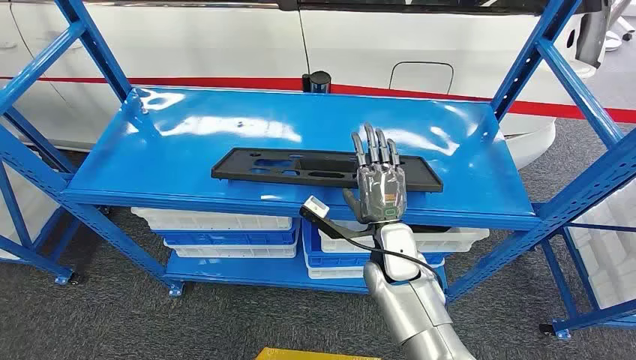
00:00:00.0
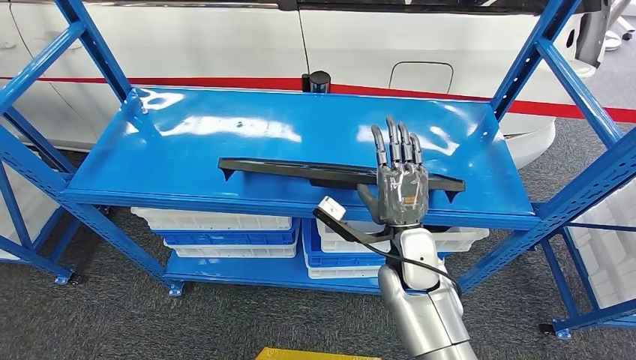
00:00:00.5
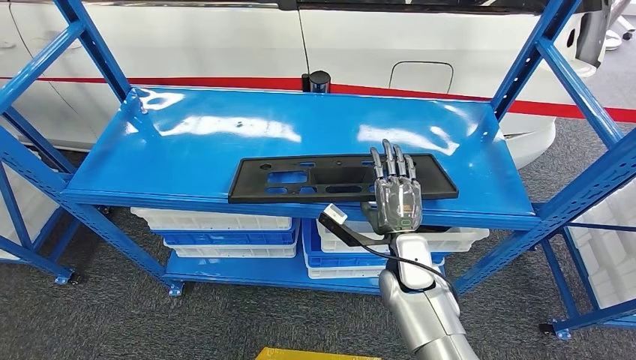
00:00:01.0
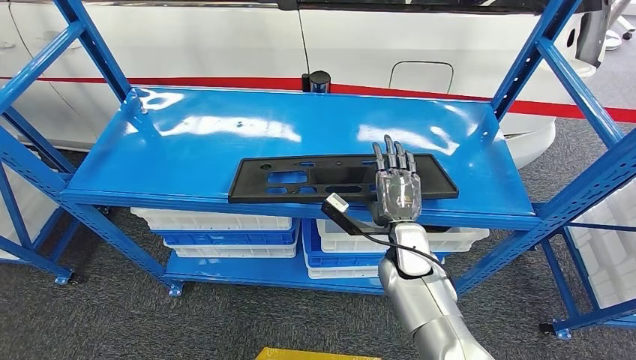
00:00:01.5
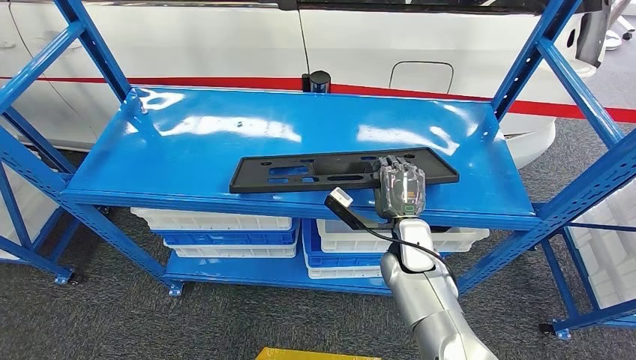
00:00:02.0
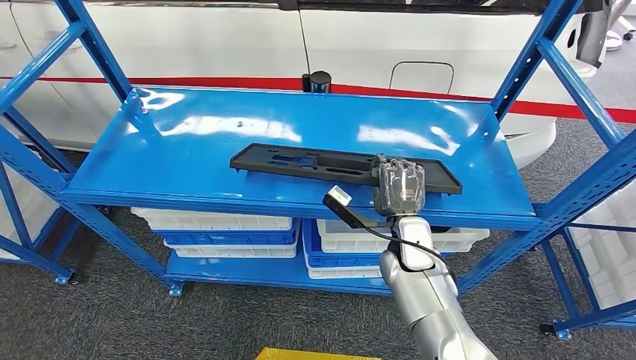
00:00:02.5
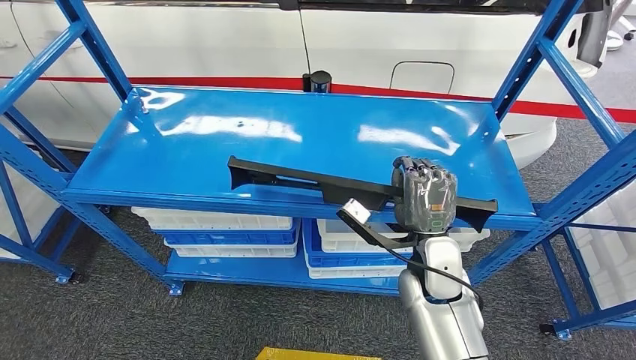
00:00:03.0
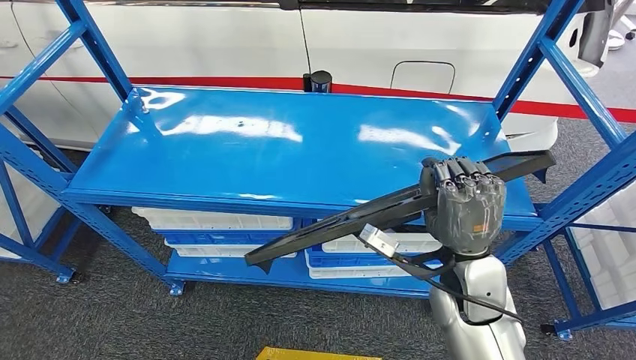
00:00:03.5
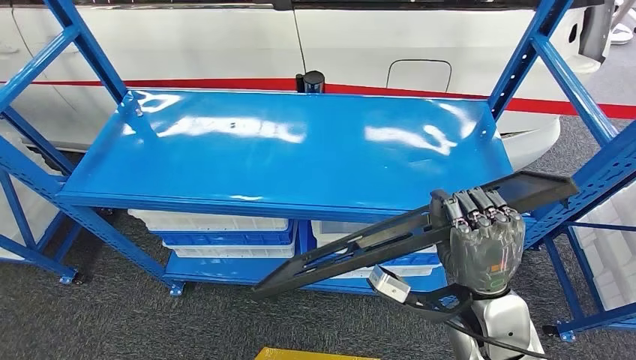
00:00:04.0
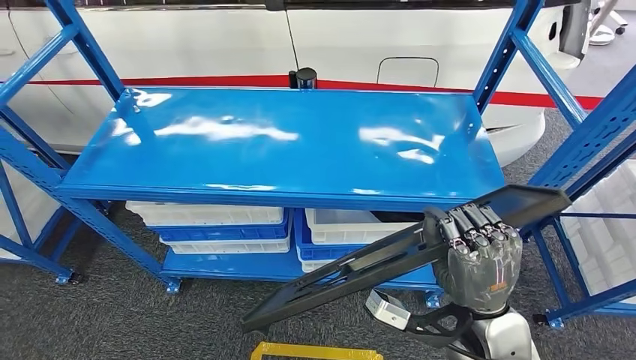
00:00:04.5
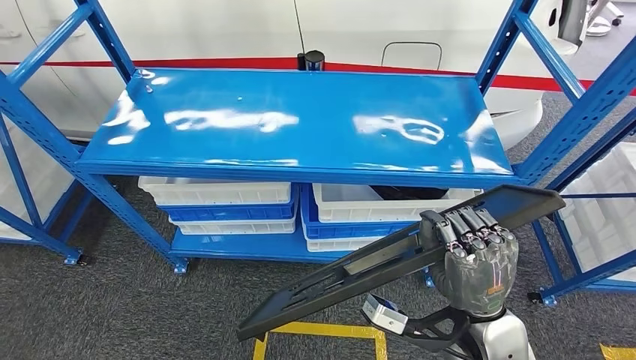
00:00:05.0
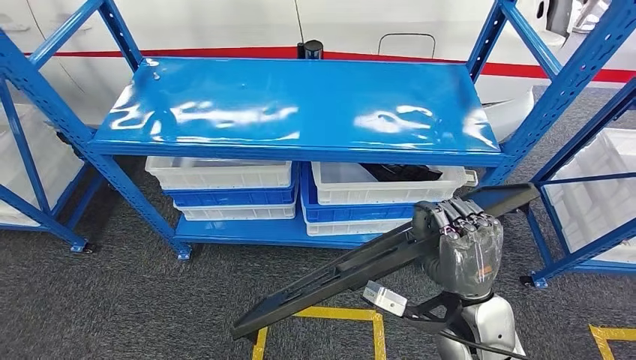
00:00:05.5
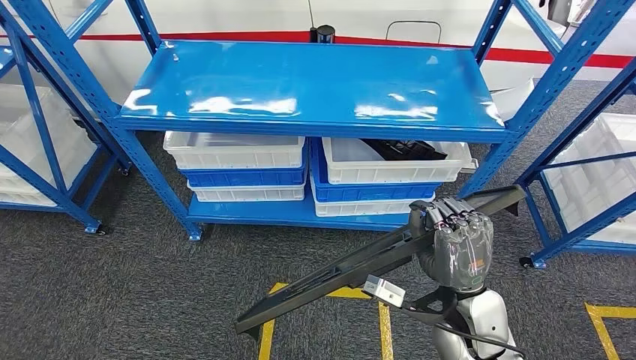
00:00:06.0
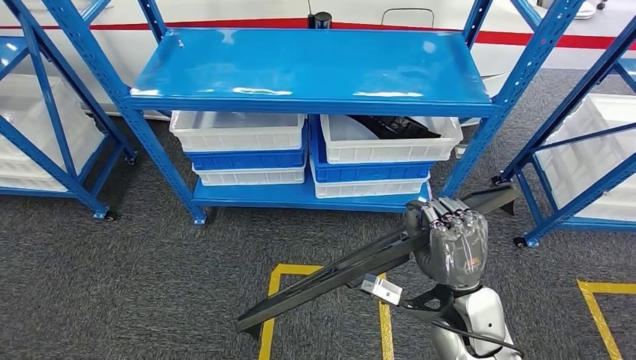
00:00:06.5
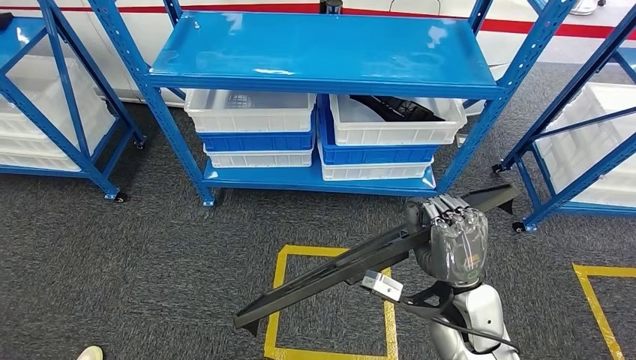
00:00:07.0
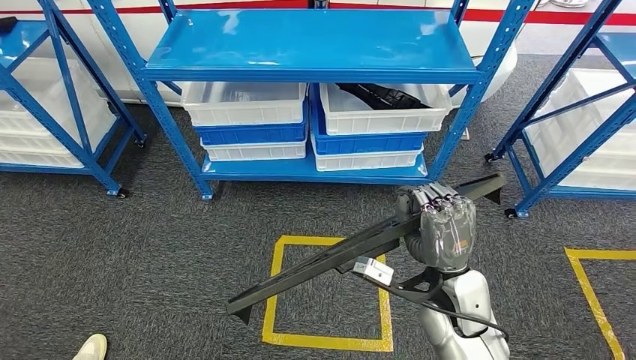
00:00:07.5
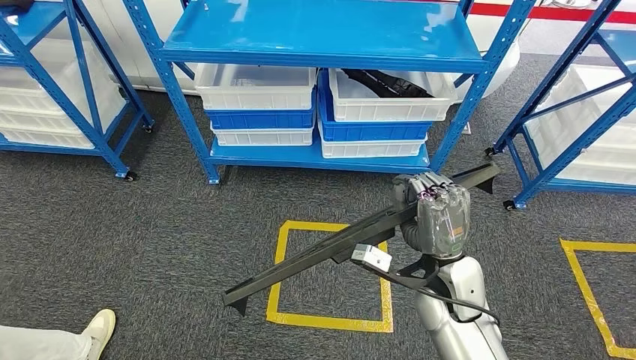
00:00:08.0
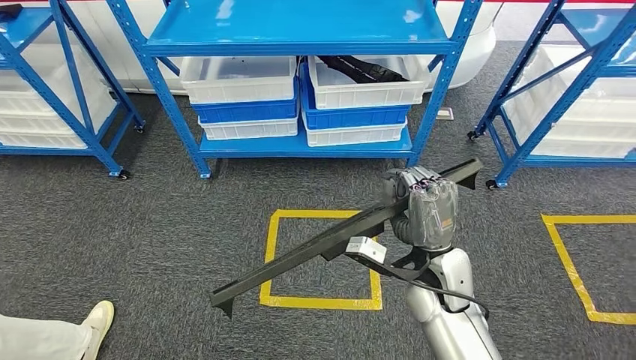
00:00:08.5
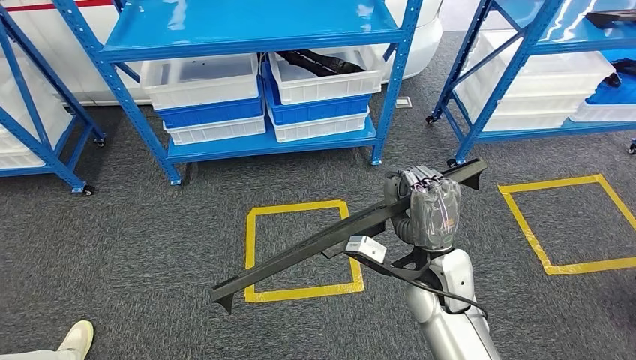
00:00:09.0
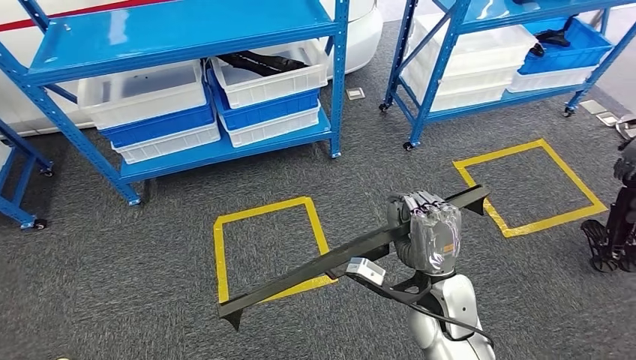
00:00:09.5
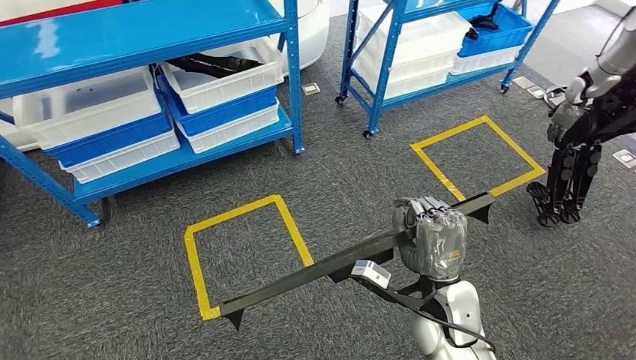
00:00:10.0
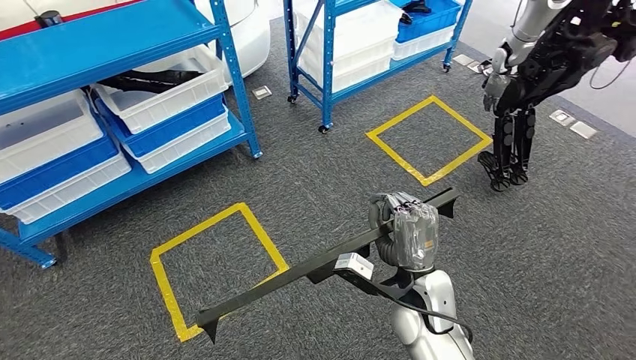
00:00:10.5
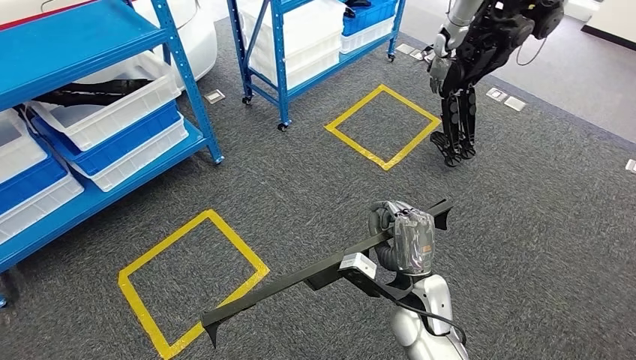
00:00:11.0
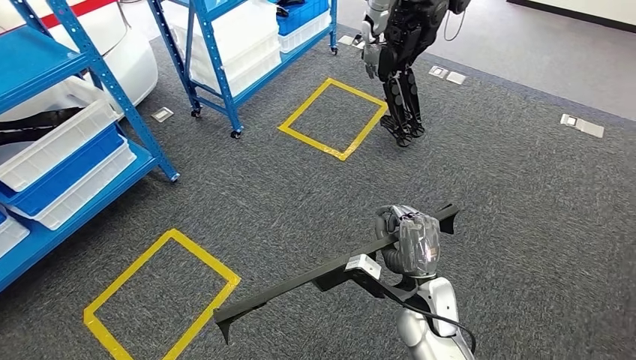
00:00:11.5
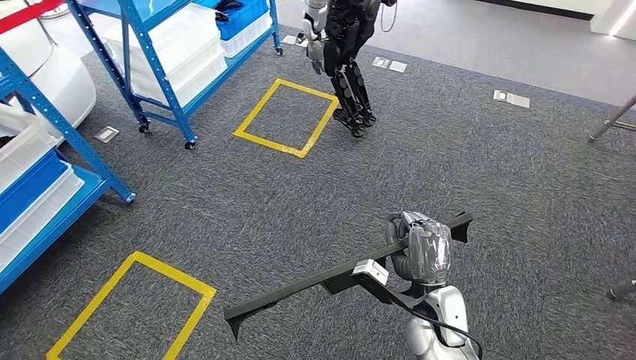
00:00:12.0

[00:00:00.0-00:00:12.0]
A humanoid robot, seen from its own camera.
Step, 00:00:00.0 to 00:00:05.0: Pick up the large material from the shelf.

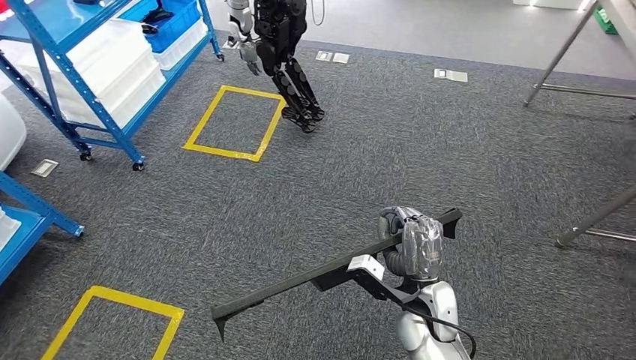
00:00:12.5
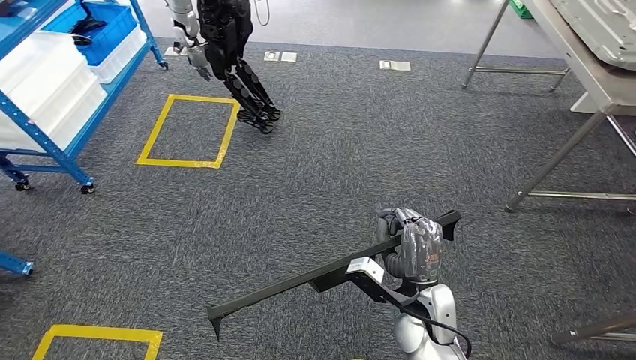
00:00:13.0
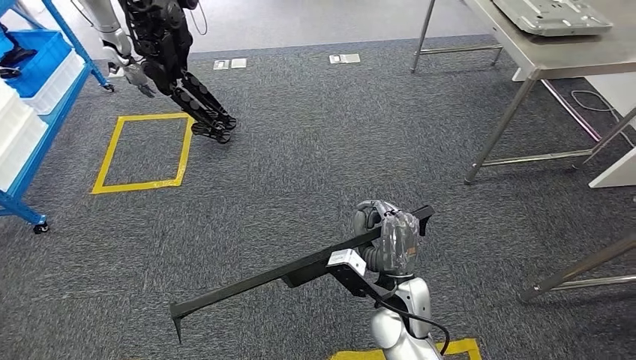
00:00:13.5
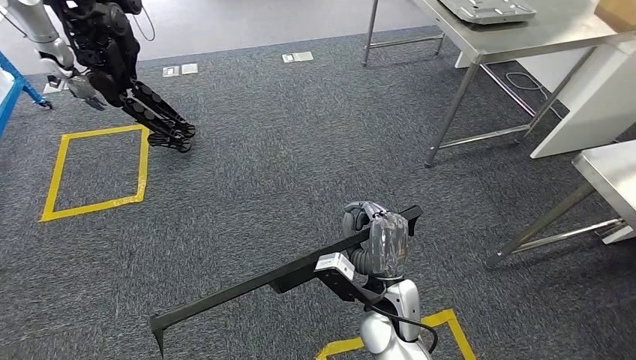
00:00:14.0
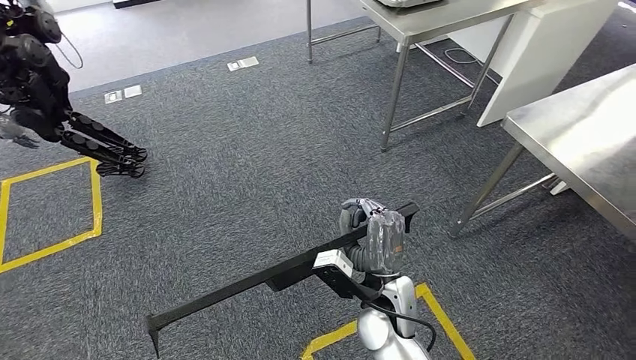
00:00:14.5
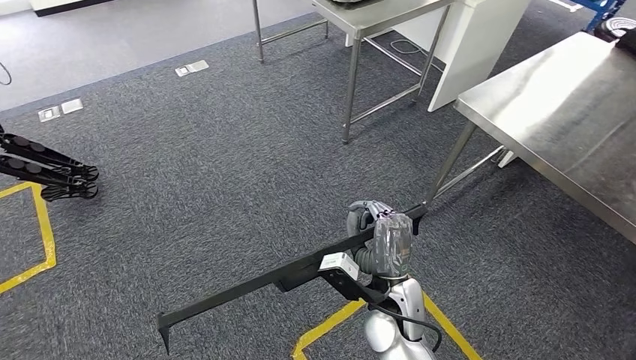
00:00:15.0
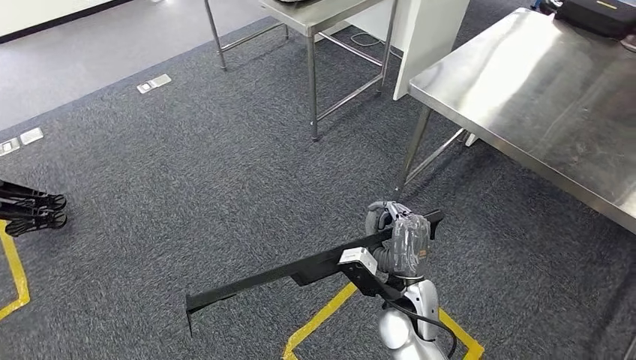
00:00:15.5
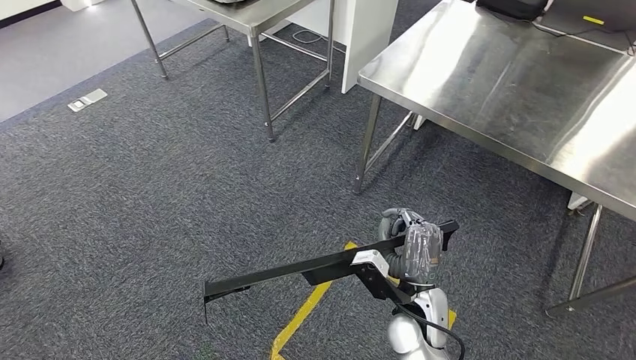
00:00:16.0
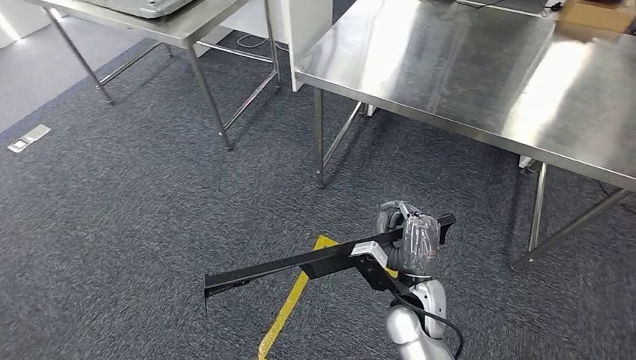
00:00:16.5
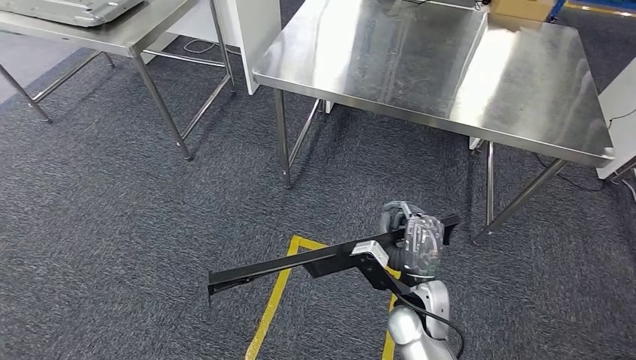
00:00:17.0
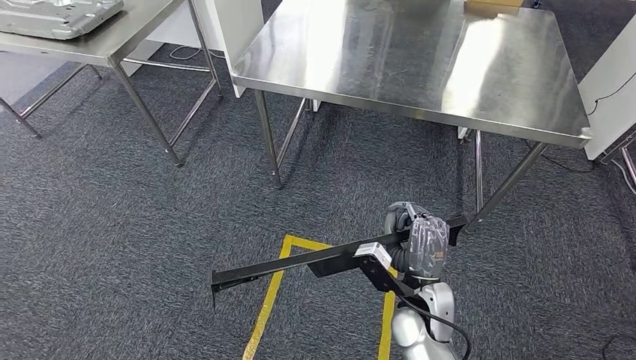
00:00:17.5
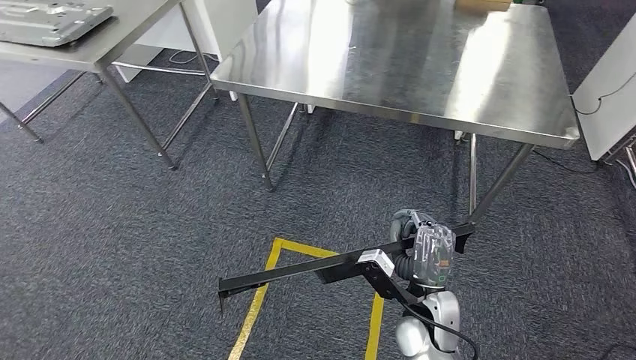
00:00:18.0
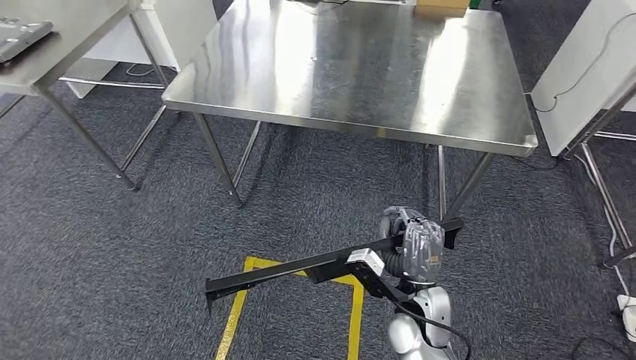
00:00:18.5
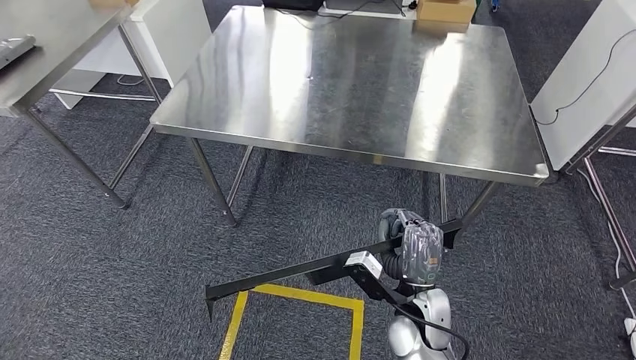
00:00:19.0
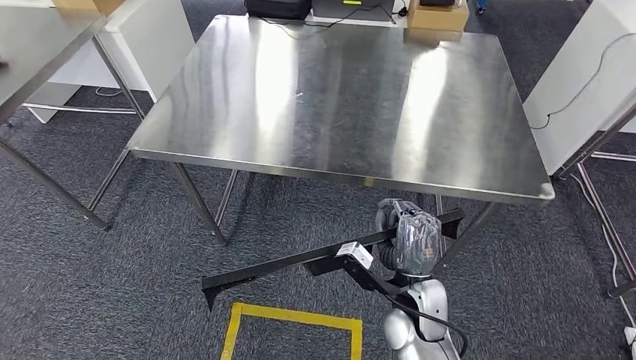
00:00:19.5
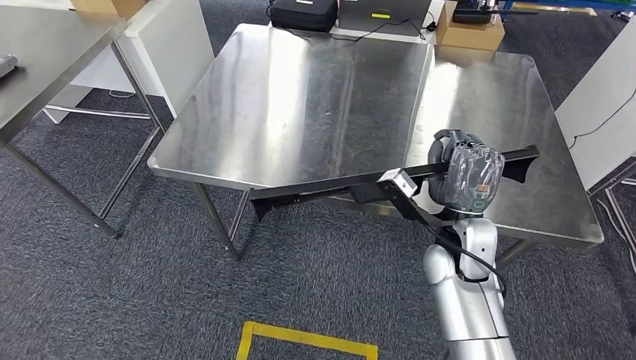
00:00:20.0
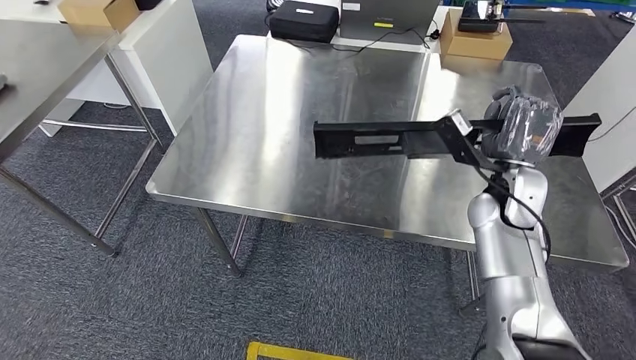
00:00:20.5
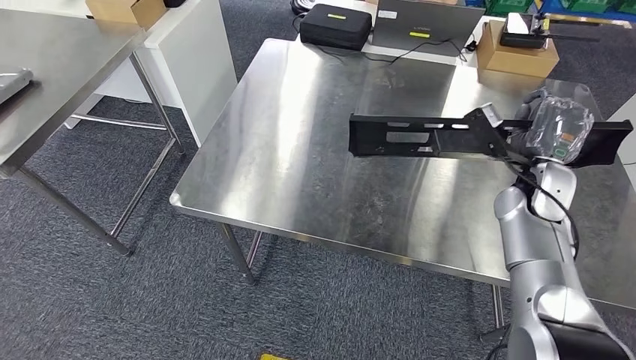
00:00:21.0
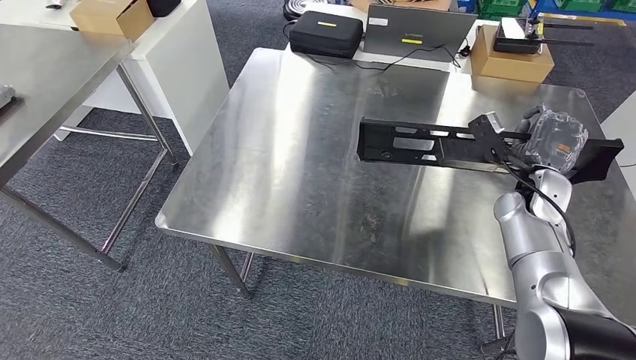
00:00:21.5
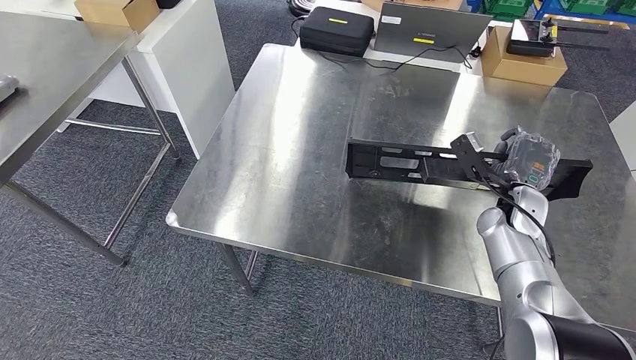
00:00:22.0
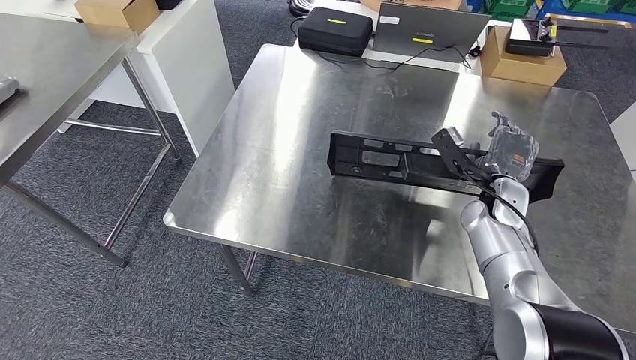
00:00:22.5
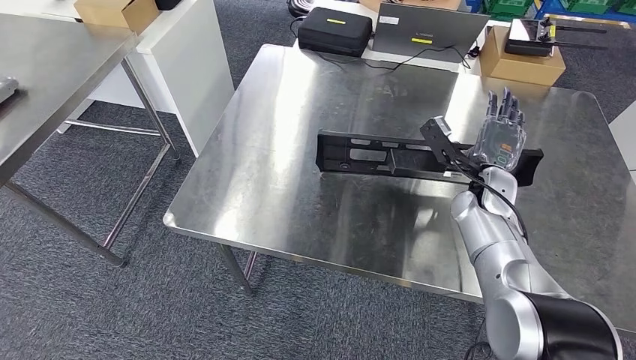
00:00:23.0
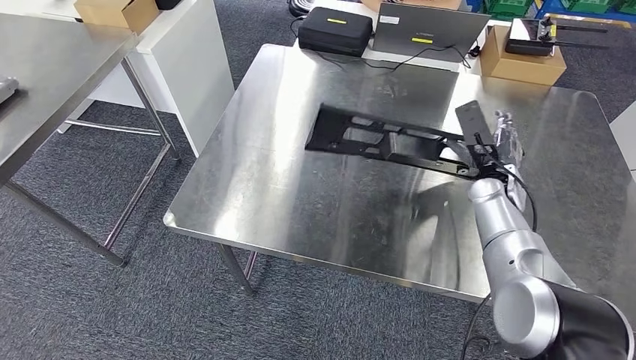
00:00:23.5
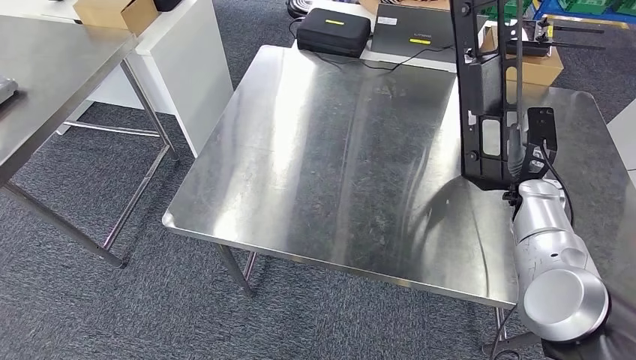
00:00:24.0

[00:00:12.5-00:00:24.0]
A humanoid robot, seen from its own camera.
Step, 00:00:12.5 to 00:00:18.5: Move the large material to the workbench.
